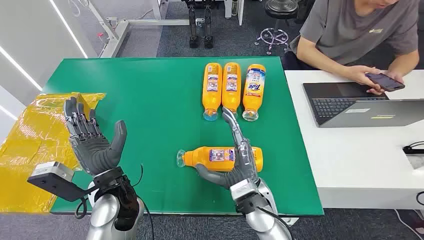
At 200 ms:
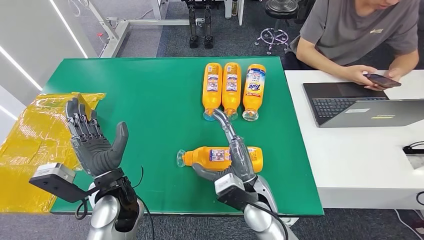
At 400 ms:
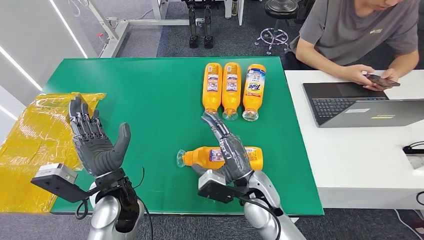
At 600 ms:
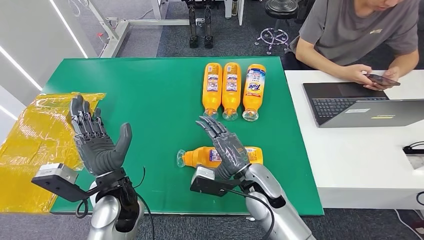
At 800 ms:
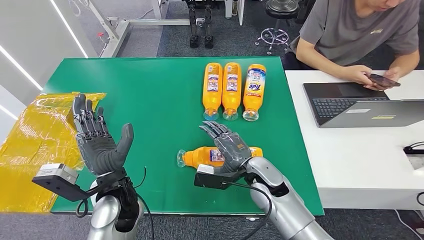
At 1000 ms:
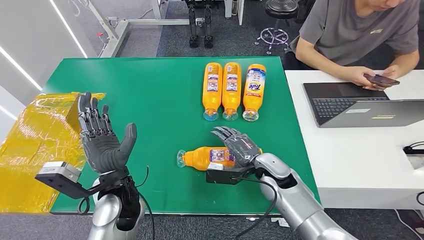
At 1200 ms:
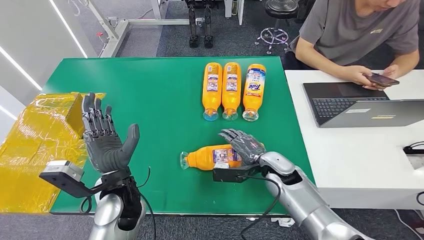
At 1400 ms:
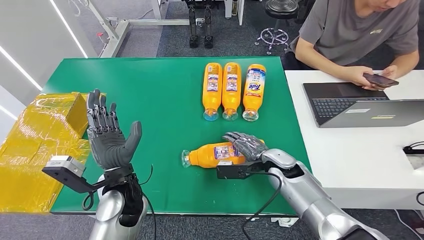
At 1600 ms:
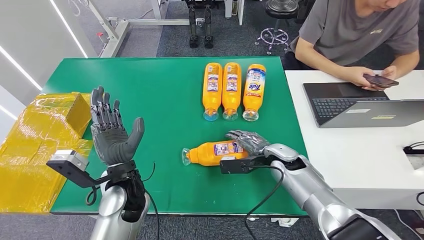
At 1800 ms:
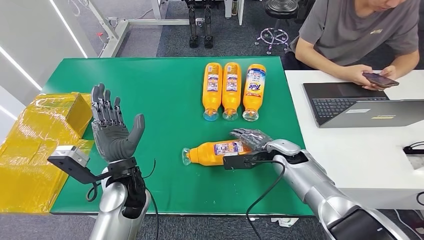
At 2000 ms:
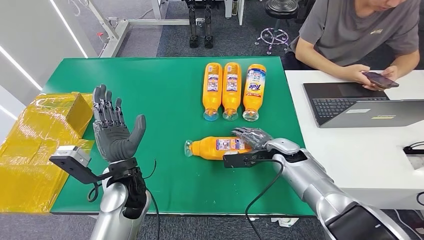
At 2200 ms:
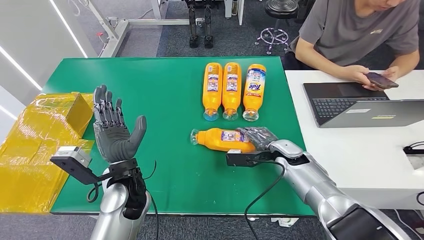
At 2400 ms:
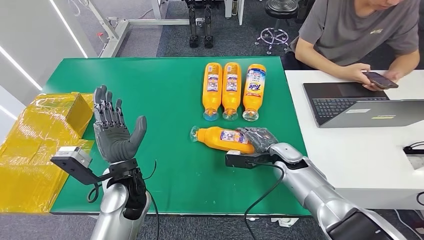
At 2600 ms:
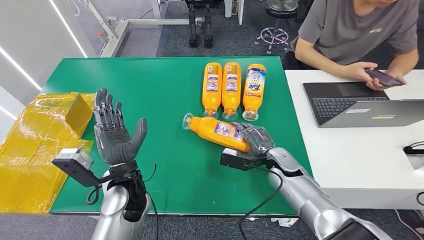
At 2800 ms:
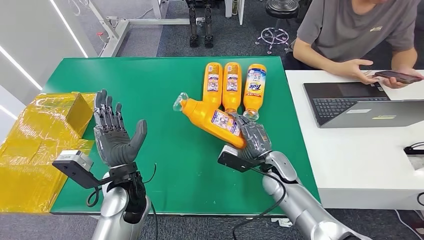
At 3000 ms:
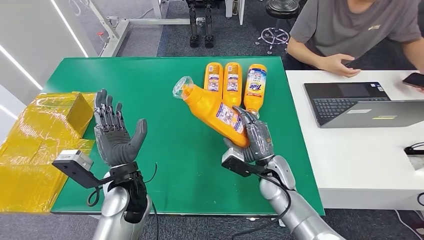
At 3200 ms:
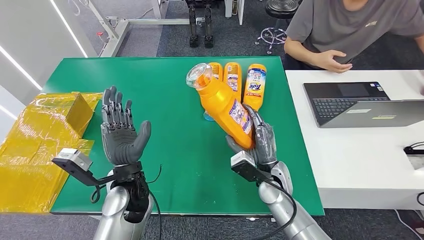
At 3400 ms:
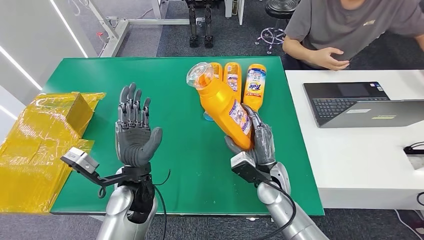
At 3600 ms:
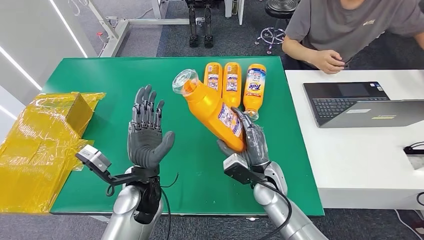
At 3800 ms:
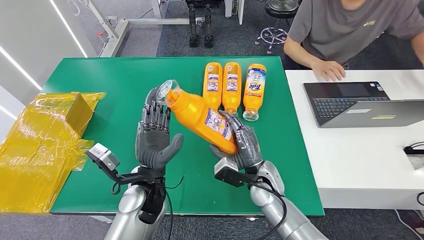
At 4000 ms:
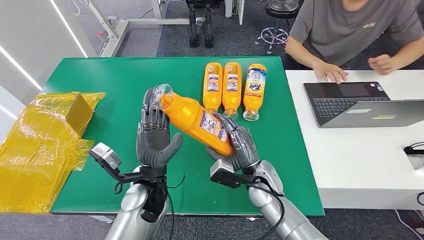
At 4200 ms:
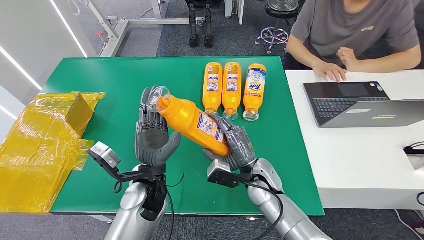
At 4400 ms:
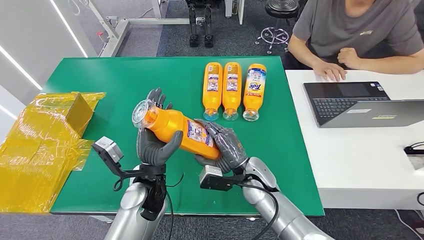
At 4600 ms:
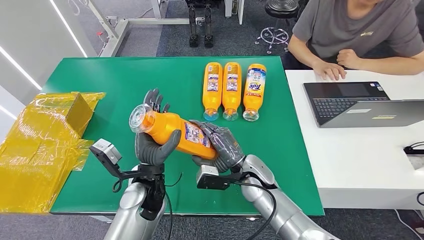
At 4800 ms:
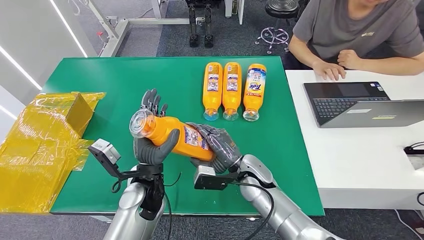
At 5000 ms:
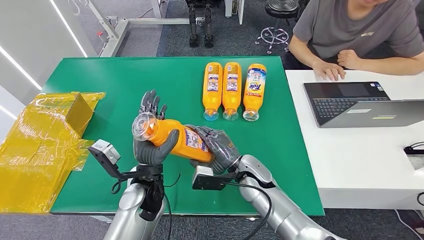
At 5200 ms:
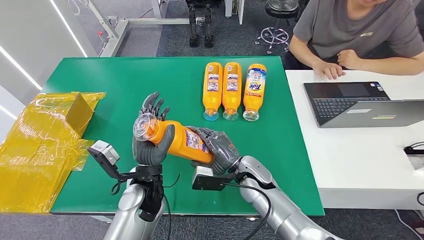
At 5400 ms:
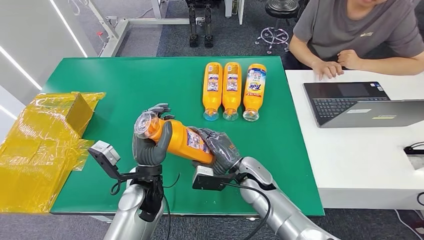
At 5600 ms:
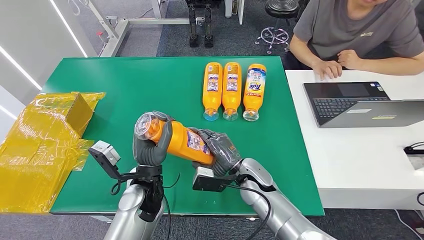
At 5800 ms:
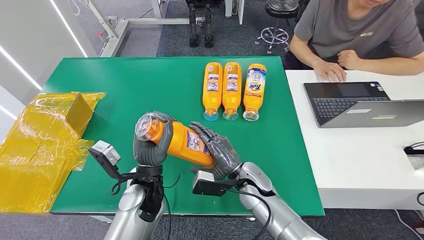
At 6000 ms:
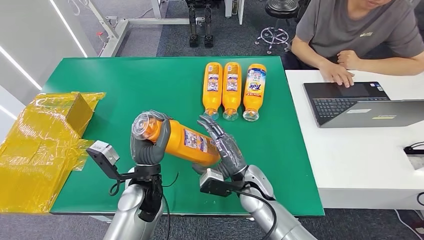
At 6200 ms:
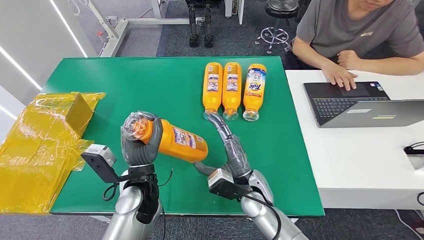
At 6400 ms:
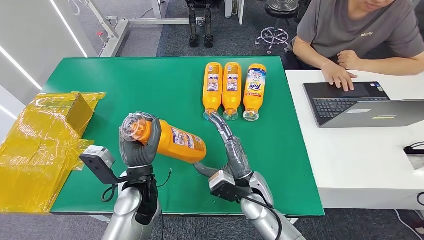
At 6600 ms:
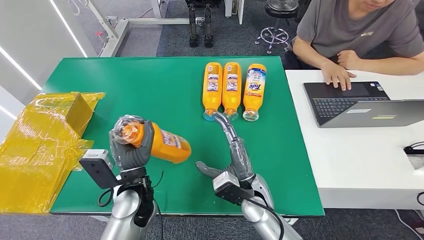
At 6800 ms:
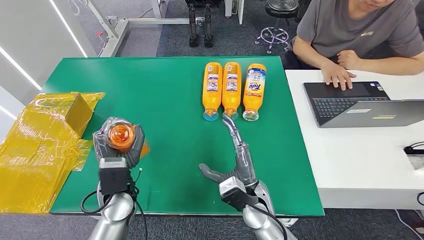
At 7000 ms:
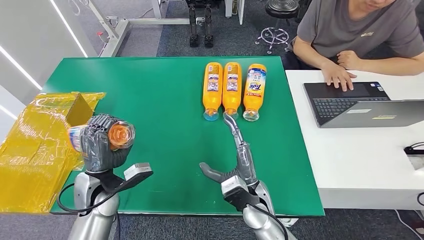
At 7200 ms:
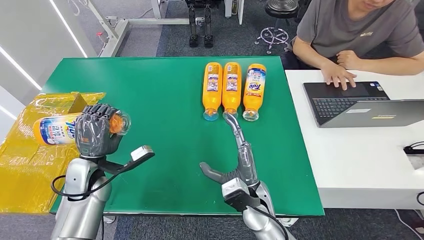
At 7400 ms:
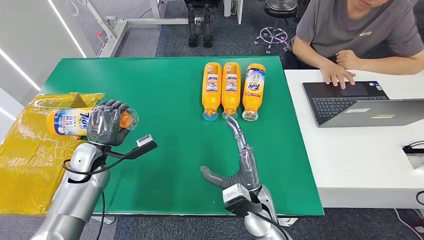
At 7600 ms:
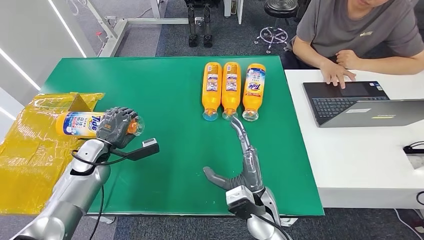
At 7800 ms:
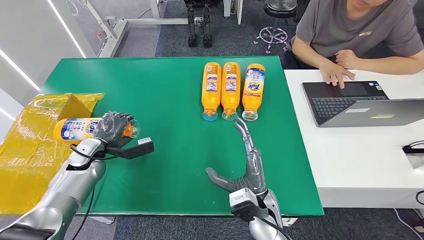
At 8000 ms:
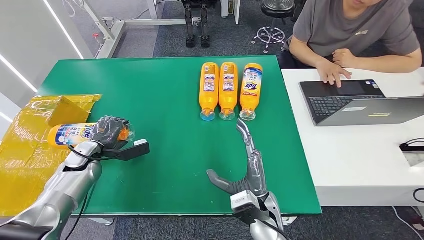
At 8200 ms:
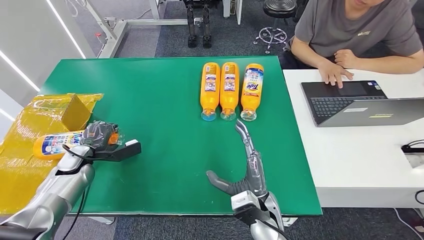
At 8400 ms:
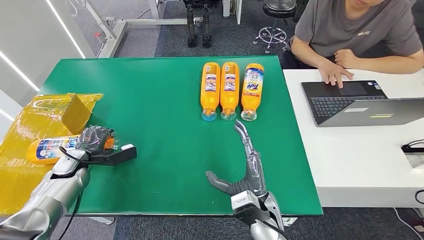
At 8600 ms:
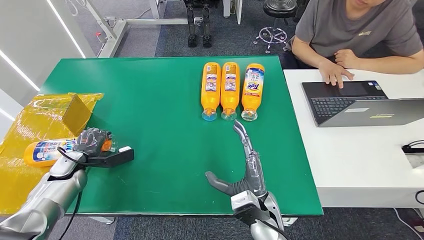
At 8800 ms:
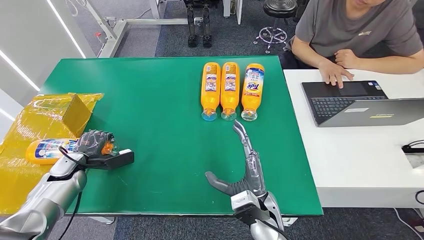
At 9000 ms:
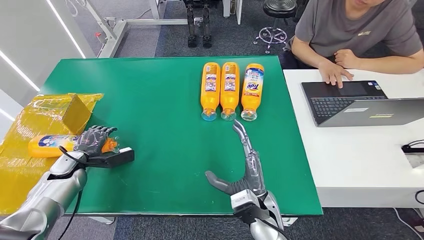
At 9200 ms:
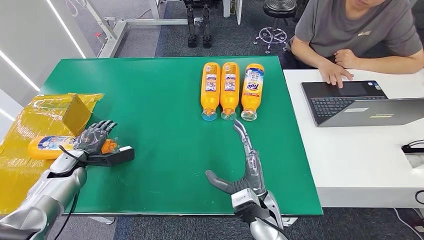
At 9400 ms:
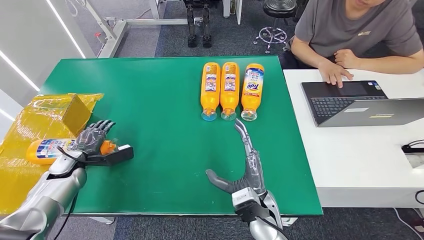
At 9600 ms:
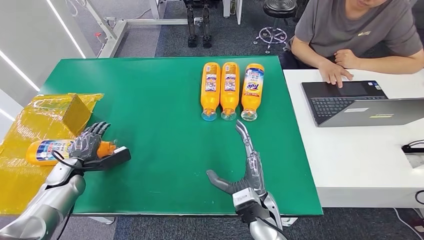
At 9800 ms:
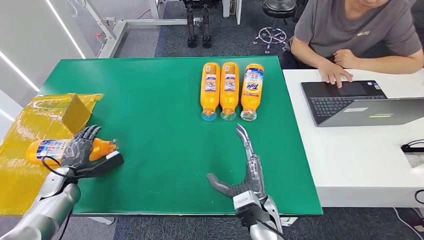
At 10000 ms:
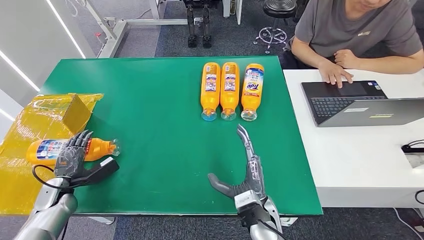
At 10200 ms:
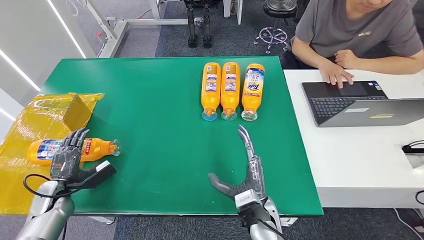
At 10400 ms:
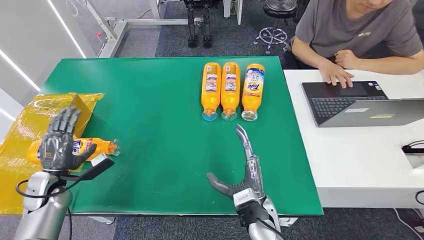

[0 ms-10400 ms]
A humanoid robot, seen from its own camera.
Step, 0 ms to 3200 ms: Pick up the bottle from the table.
Step, 3600 ms to 10400 ms: Turn the bottle to the front side.
4400 ms to 6000 ms: There are only small adjustments of the hands.
7400 ms to 9000 ms: The left hand moves to the left and downward, roughly 15 cm.
9000 ms to 10400 ms: The left hand heads backward, covering some 5 cm.

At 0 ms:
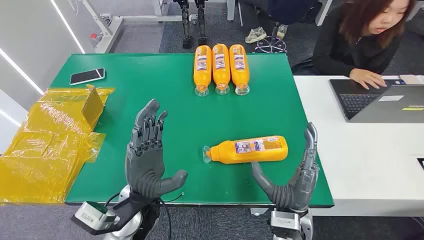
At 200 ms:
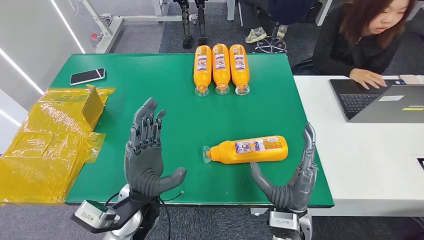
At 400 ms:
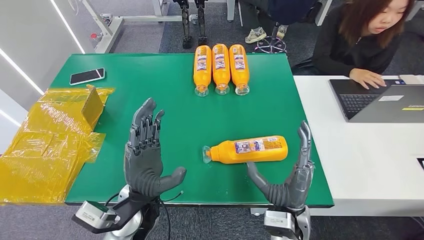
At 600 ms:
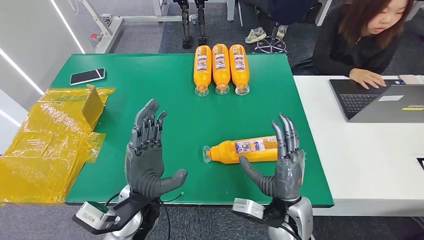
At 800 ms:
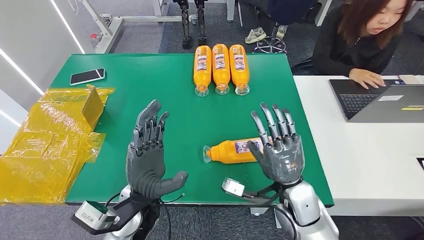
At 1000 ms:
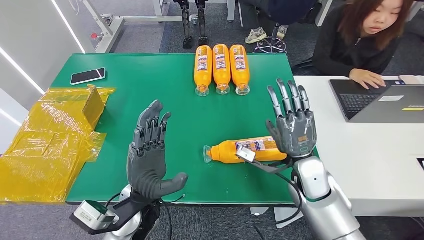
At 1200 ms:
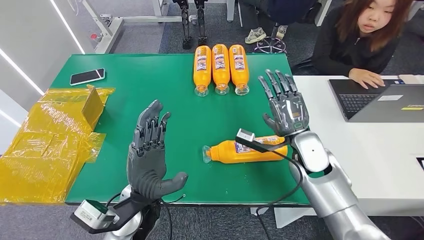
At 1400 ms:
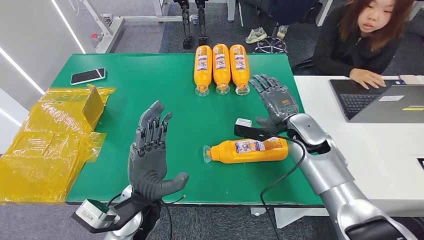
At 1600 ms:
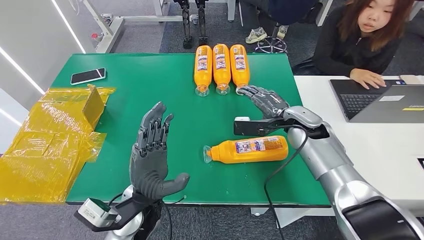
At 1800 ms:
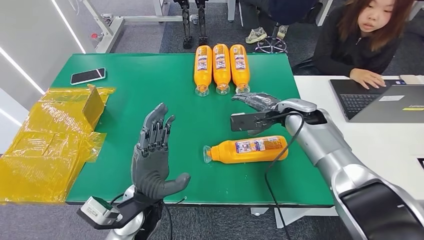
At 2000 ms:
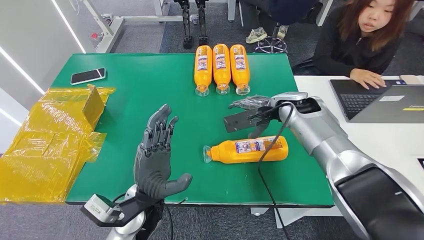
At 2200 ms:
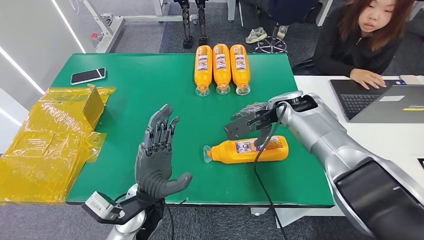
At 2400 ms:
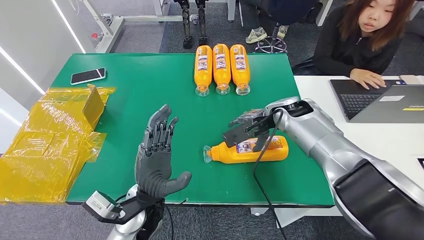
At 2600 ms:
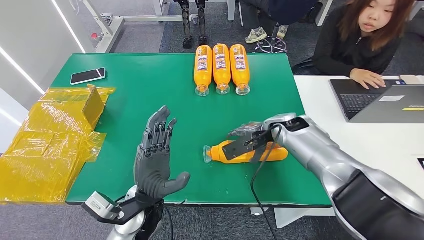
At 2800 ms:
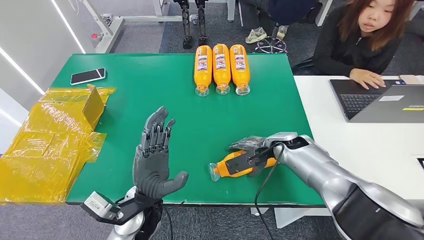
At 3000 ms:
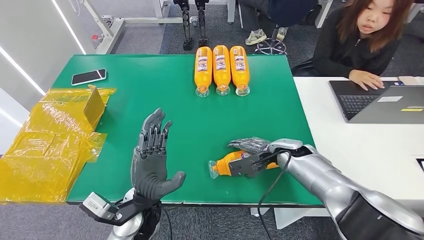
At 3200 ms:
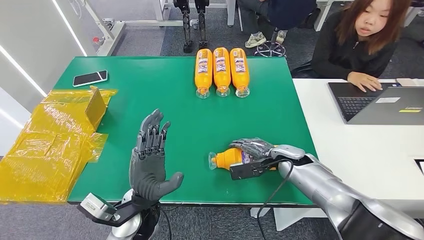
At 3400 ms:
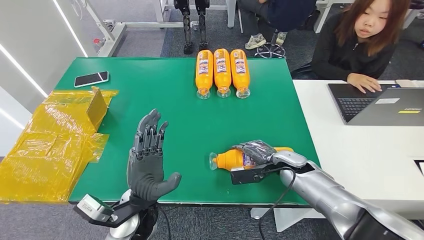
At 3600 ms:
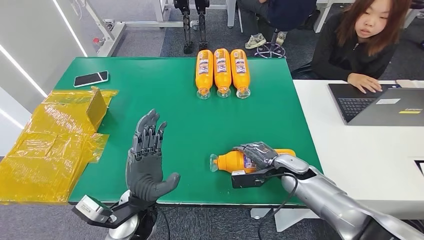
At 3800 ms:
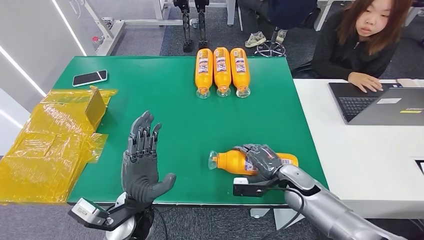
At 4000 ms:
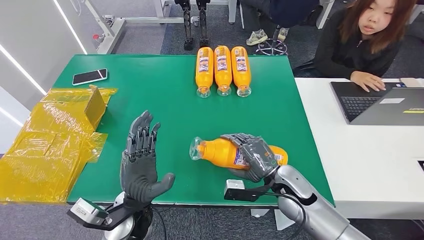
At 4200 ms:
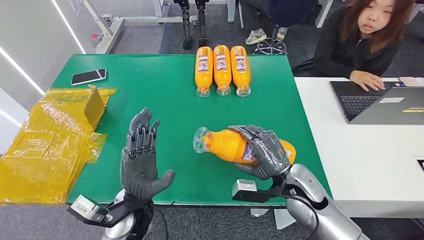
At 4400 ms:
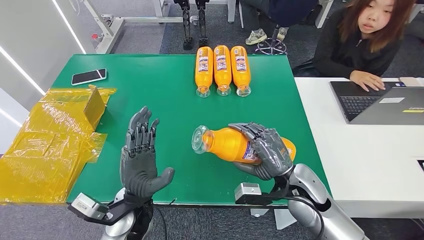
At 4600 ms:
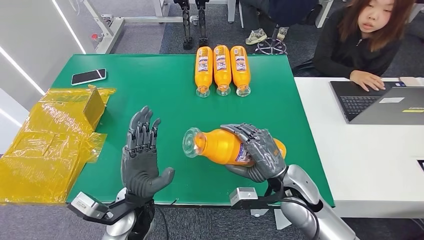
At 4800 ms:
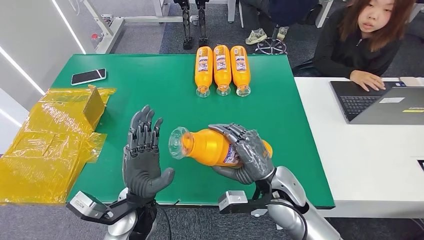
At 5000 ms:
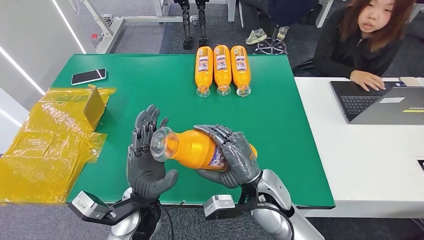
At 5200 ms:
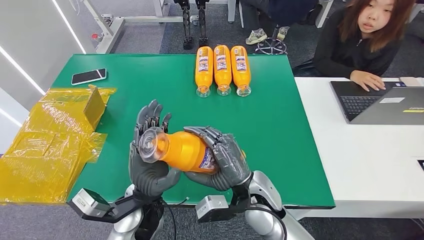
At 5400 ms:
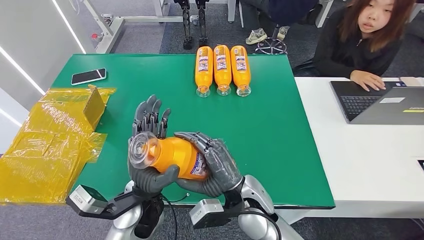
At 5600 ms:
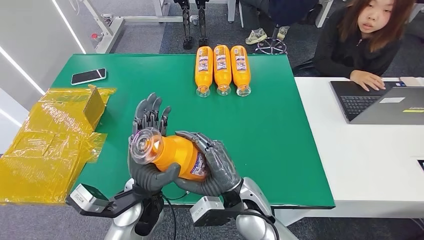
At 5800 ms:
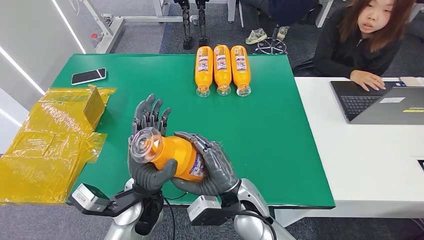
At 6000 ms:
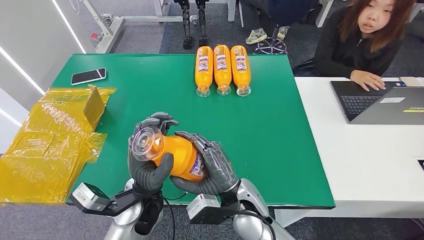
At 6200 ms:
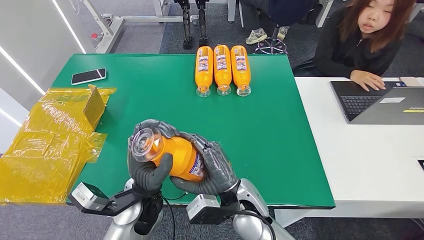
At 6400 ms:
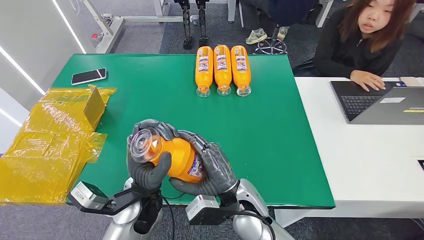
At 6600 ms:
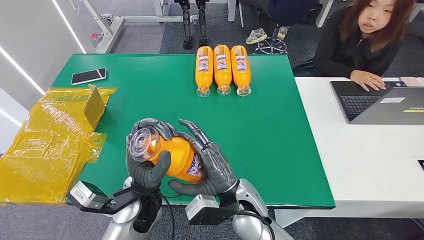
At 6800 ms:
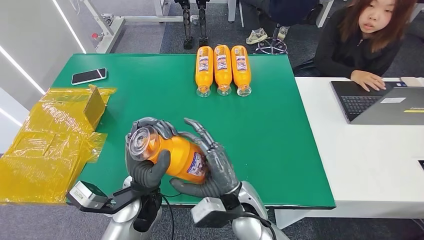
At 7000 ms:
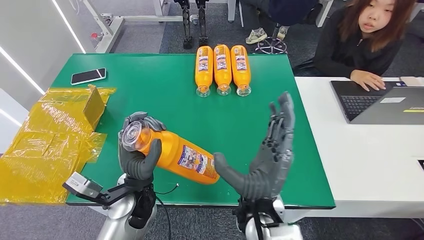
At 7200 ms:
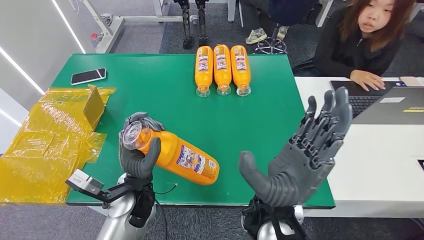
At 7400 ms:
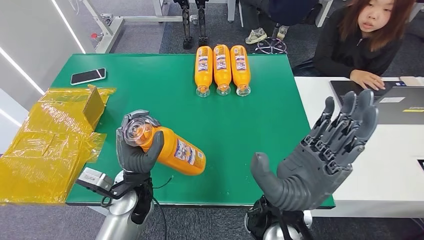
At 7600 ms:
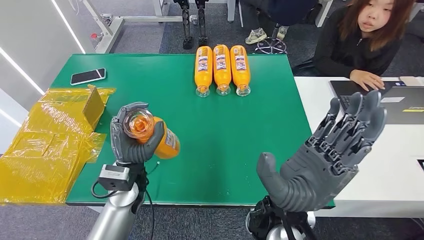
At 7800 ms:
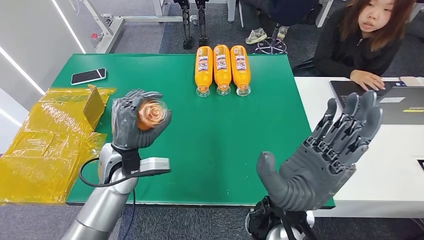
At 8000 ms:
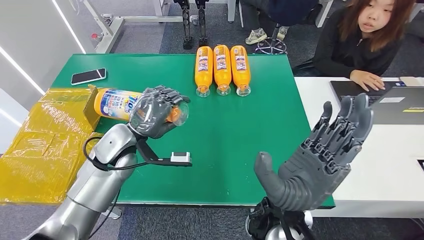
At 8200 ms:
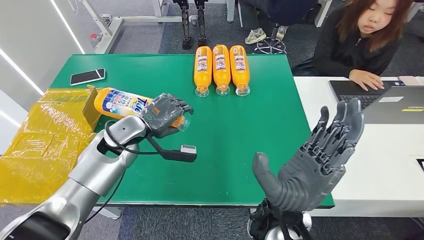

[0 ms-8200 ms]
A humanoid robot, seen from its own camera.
Step, 0 ms to 4400 ms: Pick up the bottle from the table.
5000 ms to 6600 ms: The right hand goes approximately 5 cm to the left.
